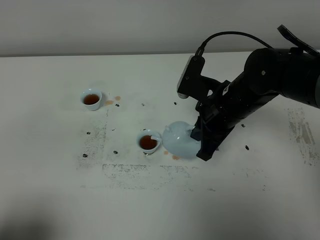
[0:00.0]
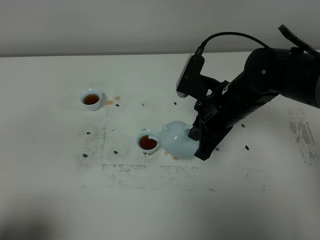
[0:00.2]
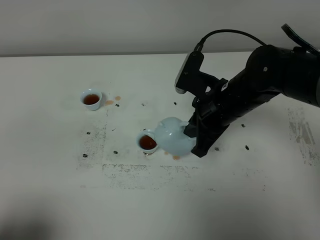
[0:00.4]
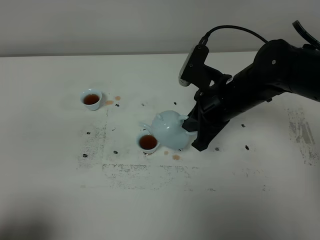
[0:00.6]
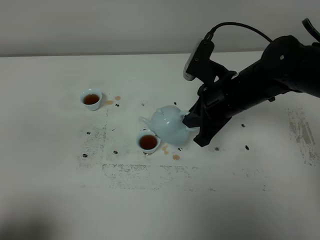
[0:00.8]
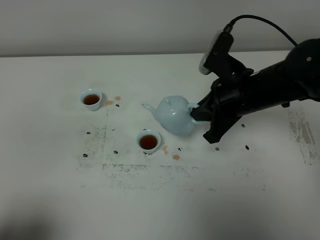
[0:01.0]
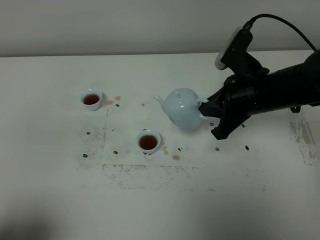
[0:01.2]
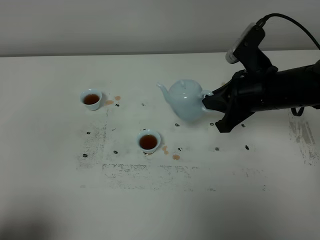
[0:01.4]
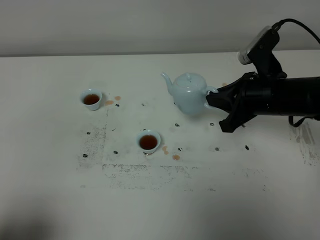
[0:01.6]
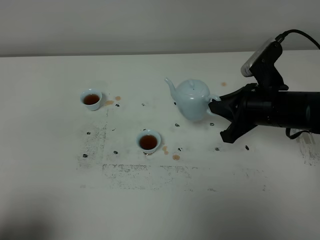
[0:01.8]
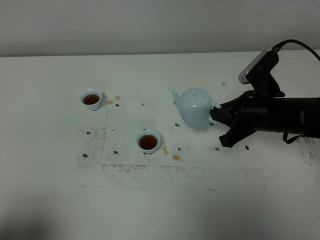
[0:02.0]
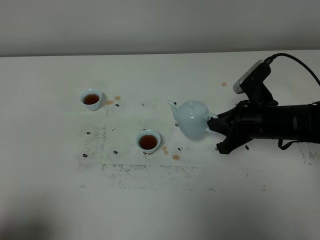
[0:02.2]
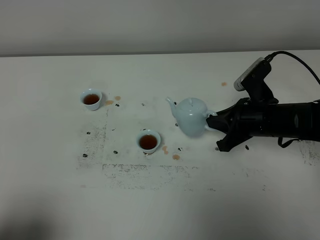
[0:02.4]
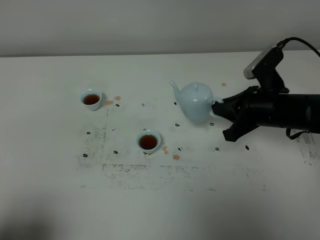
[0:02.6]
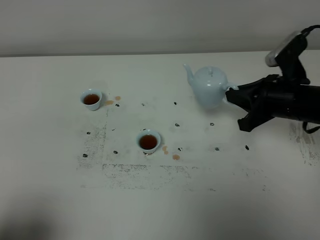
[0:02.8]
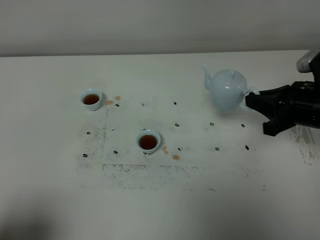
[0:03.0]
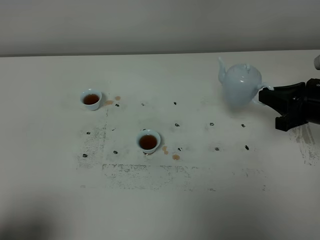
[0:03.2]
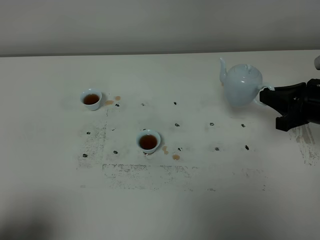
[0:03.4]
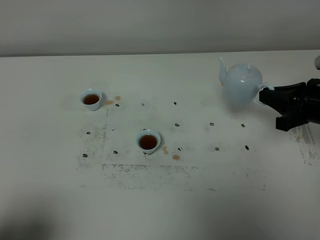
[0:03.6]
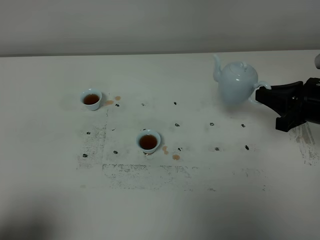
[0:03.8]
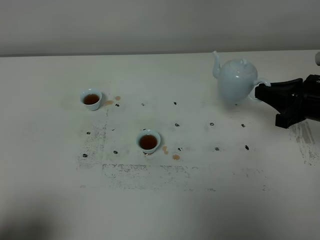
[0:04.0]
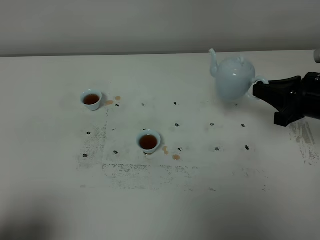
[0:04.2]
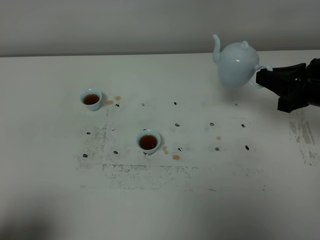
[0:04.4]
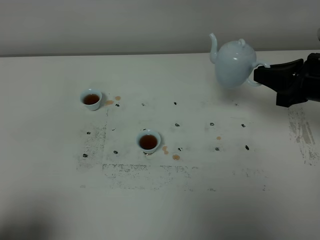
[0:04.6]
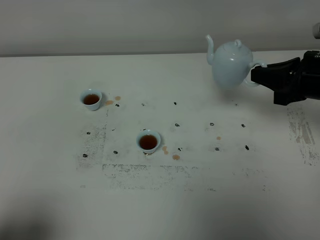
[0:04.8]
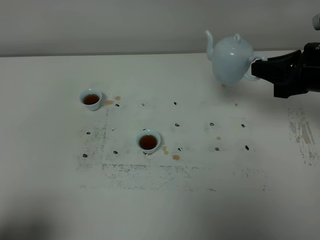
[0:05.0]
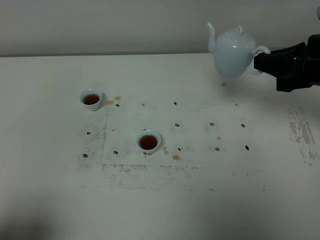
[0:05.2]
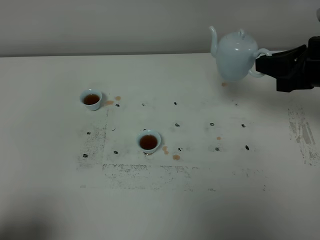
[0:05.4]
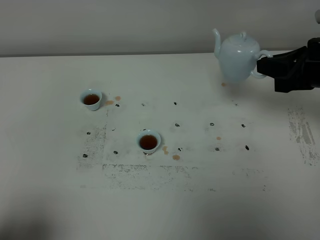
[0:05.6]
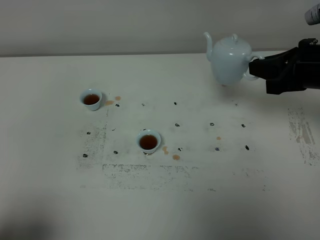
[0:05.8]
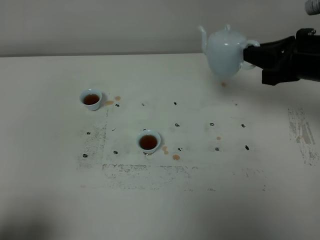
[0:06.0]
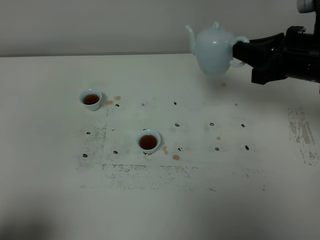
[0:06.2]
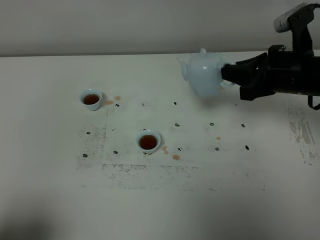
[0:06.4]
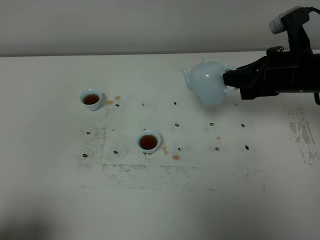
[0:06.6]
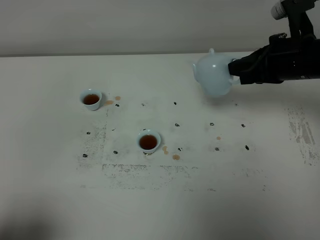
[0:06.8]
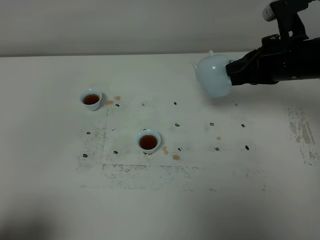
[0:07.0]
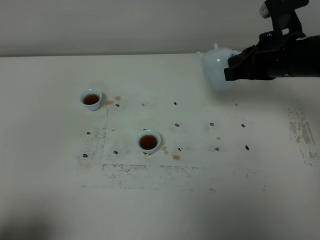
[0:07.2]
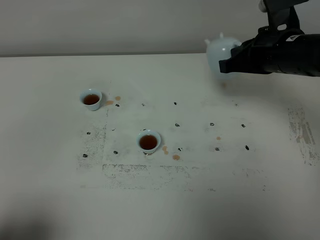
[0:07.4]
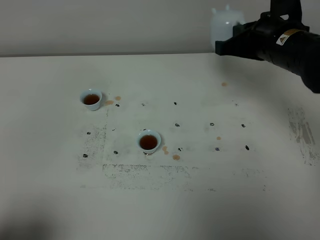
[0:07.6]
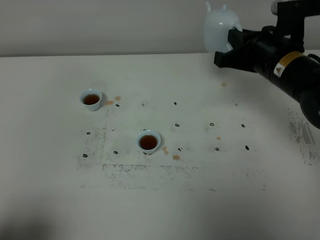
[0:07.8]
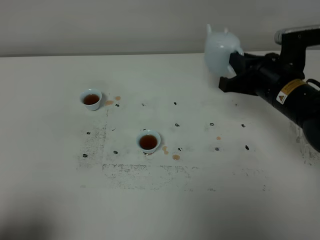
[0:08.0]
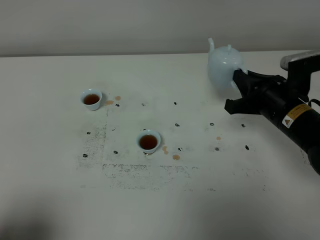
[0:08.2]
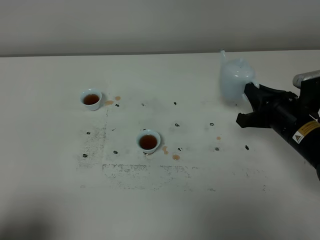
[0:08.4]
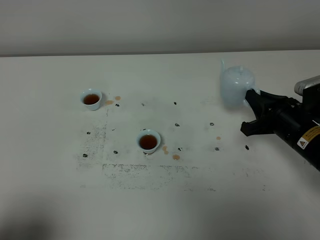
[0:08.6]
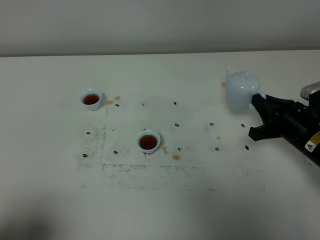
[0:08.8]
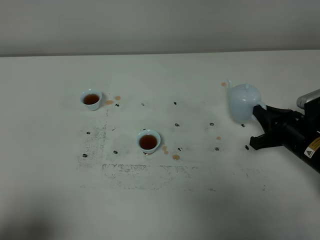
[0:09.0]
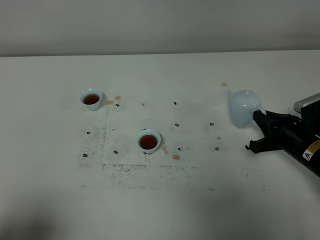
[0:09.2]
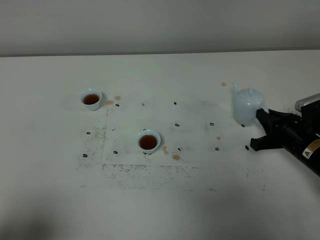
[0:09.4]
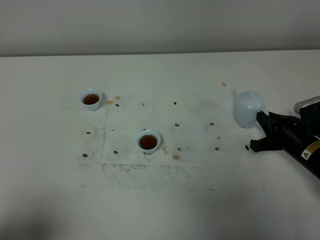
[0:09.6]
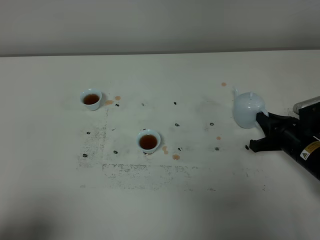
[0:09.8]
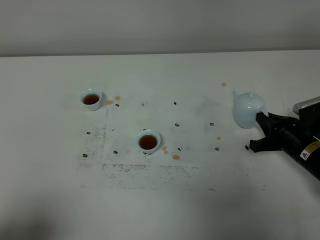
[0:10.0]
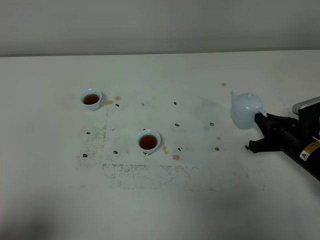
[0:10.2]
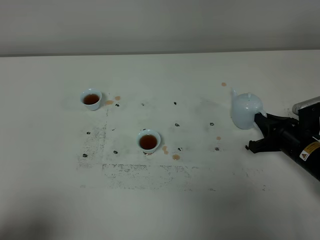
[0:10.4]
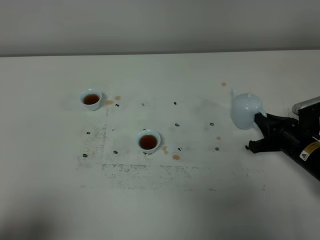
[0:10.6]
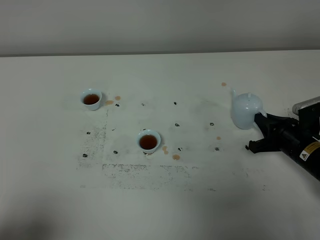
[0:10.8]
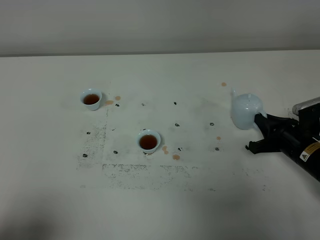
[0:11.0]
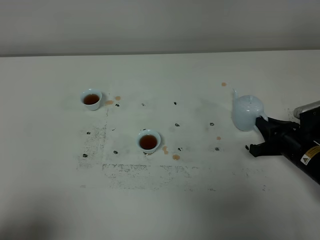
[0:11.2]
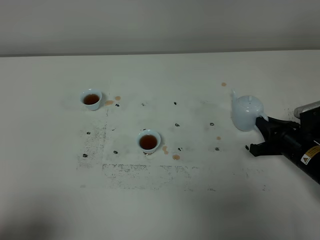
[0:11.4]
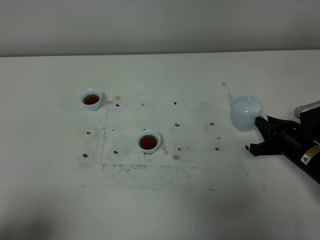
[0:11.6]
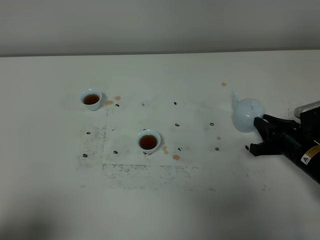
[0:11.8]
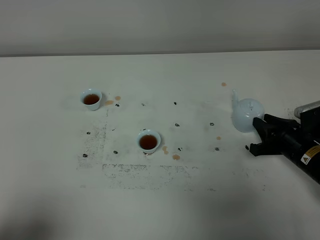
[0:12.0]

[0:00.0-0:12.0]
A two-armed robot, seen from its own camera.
Task of the whole recording: grasp the blue porcelain teapot and pour the tea into the two blue porcelain teacups one by one, put the blue porcelain teapot back in its original place.
0:00.0 to 0:01.6: The right gripper shifts roughly 5 cm to the right.
0:01.6 to 0:03.0: The right gripper is displaced to the right by some 10 cm.
0:03.0 to 0:04.4: The grippers make only small movements.
0:04.4 to 0:06.0: The right gripper goes roughly 5 cm upward.
0:06.0 to 0:07.6: The right gripper goes about 5 cm to the left.
0:07.6 to 0:09.0: The right gripper moves downward and to the right, some 20 cm.
0:09.0 to 0:10.4: The grippers stay close to where they were, moving slightly.
0:10.4 to 0:12.0: The right gripper opens.

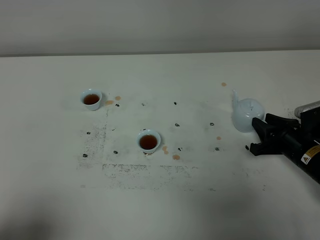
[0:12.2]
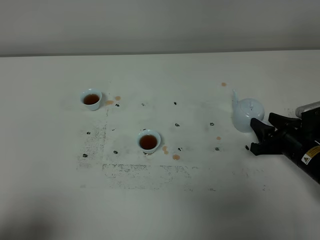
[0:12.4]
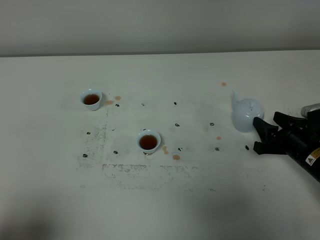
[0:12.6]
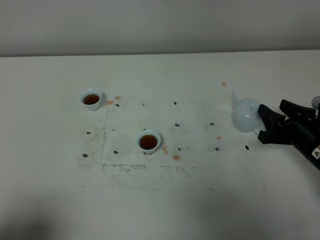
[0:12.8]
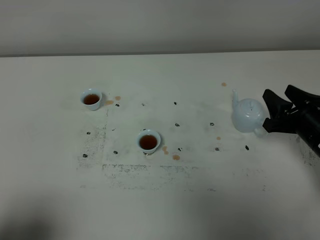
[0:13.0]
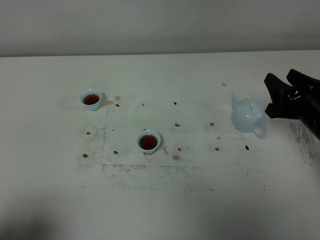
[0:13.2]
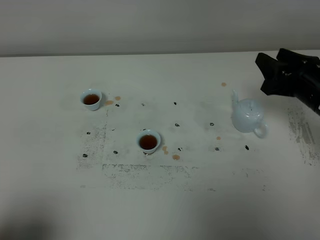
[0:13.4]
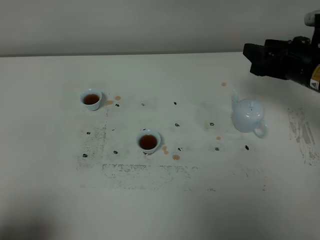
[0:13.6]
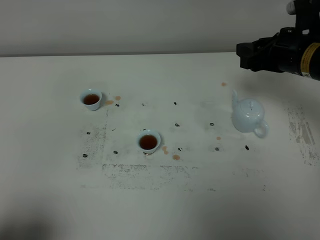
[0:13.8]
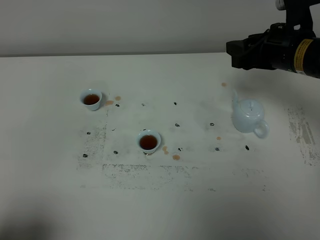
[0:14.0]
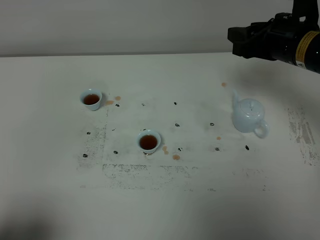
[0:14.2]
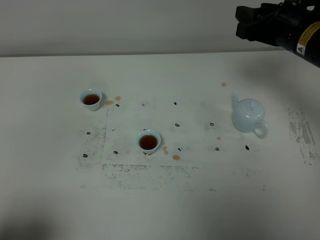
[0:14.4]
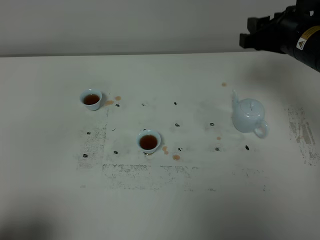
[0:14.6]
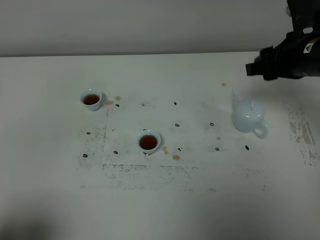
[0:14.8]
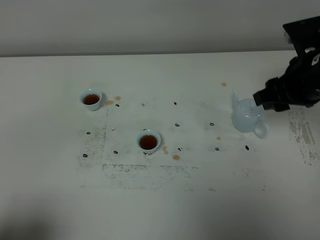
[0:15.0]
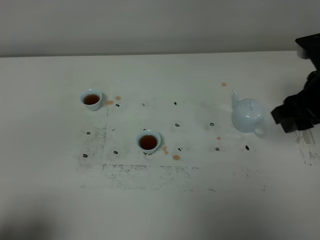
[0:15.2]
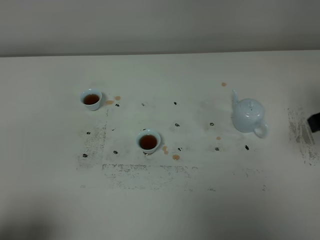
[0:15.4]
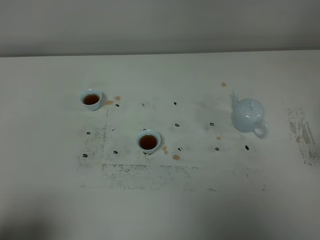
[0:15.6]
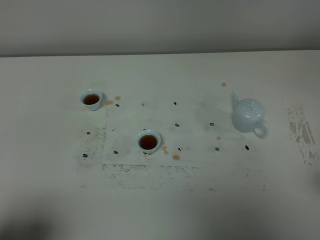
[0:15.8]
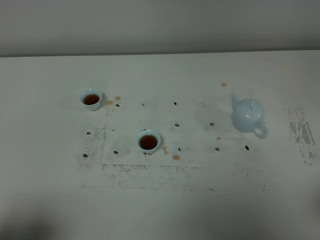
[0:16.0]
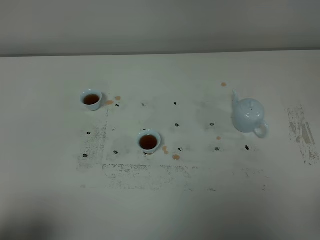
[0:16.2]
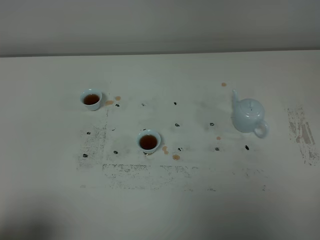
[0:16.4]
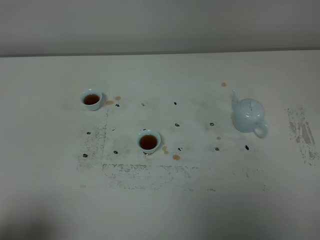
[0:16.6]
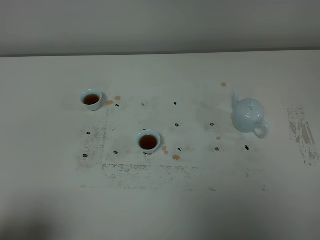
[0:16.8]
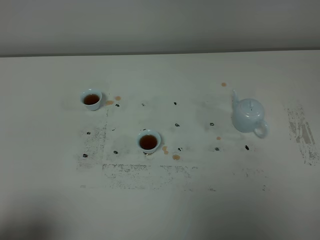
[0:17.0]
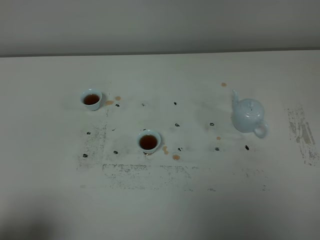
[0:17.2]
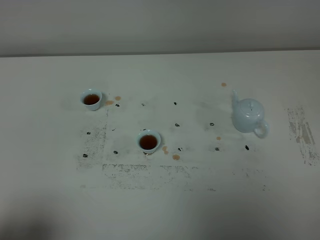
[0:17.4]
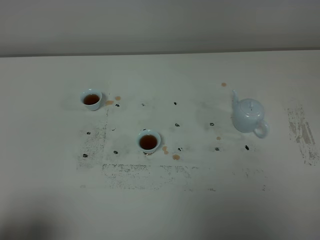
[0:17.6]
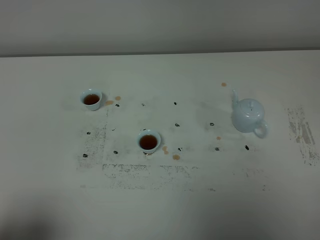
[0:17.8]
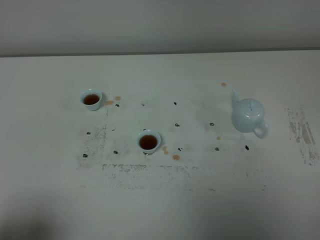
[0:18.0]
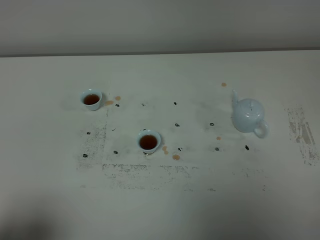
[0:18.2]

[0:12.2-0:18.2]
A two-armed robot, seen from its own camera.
Task of the whole recording: grasp the blue porcelain teapot and pour the tea into the two blue porcelain teacups one by one, put the blue porcelain teapot back in its original place.
0:12.2 to 0:13.8: The right gripper moves upward and forward, about 20 cm.
0:13.8 to 0:15.2: The right gripper heads backward, covering approximately 10 cm.
0:15.2 to 0:16.6: The right gripper is displaced backward by roughly 25 cm.
0:16.6 to 0:18.2: Both grippers stay about where they are.
